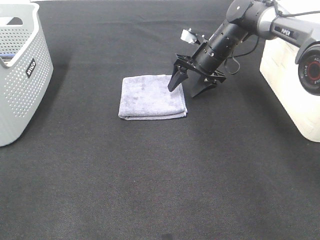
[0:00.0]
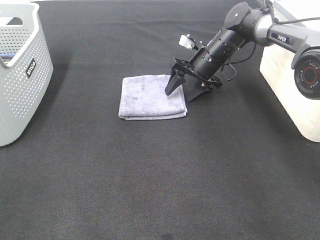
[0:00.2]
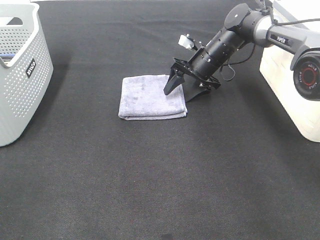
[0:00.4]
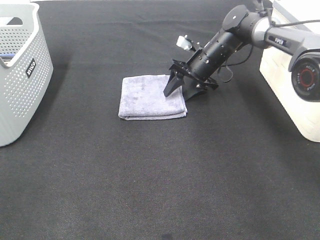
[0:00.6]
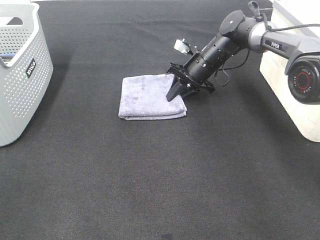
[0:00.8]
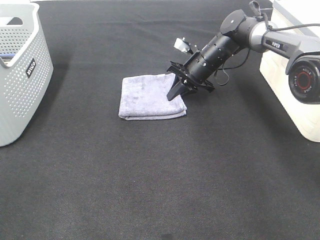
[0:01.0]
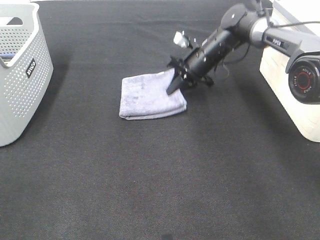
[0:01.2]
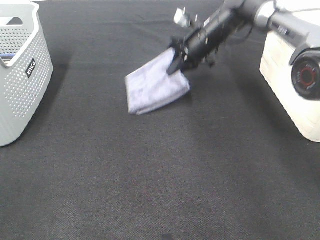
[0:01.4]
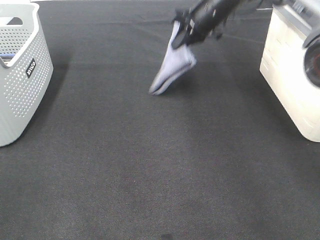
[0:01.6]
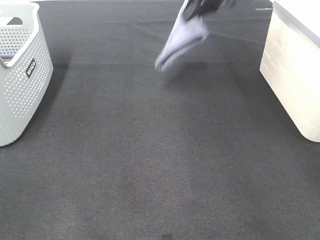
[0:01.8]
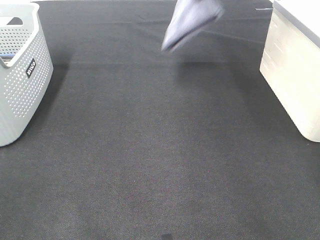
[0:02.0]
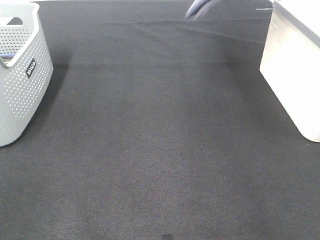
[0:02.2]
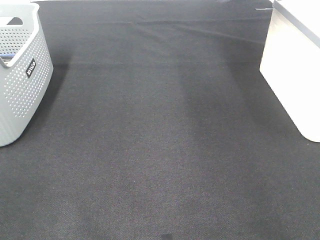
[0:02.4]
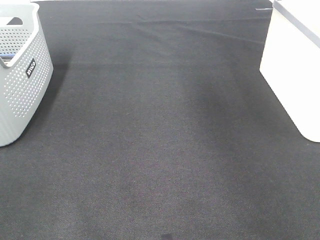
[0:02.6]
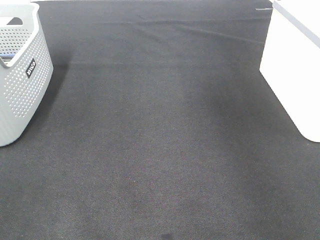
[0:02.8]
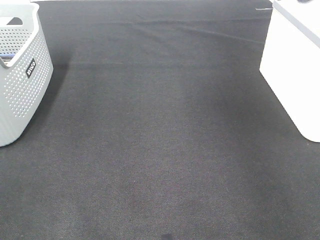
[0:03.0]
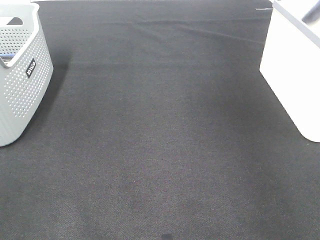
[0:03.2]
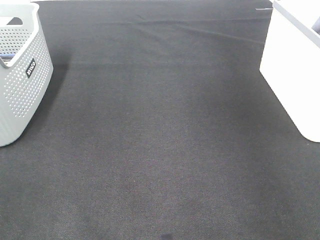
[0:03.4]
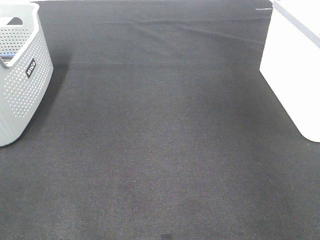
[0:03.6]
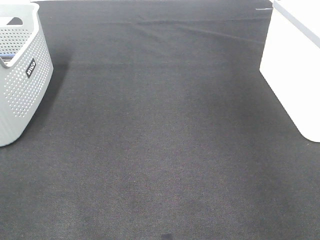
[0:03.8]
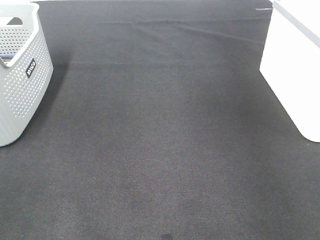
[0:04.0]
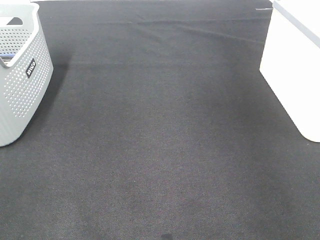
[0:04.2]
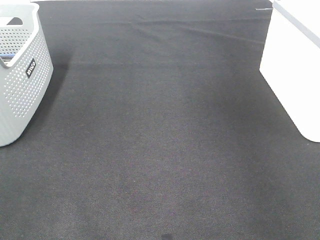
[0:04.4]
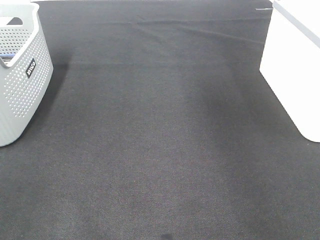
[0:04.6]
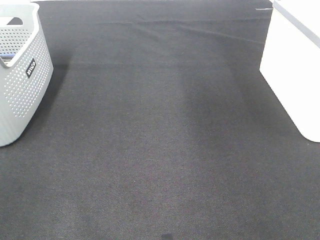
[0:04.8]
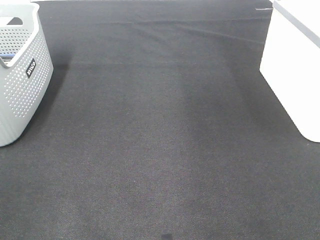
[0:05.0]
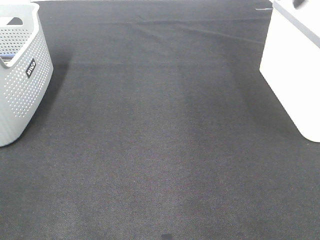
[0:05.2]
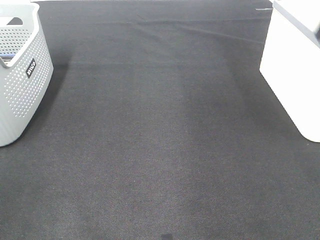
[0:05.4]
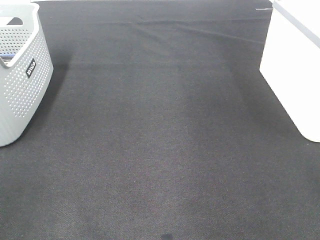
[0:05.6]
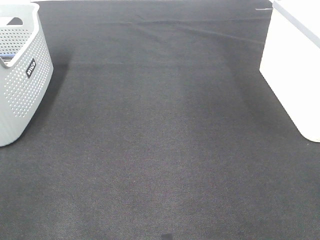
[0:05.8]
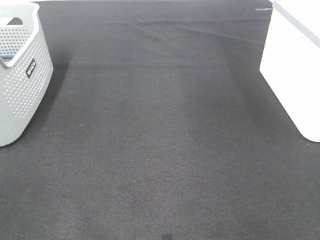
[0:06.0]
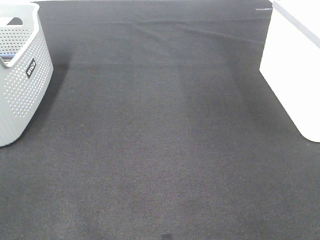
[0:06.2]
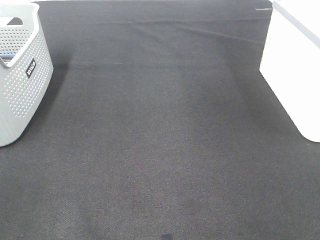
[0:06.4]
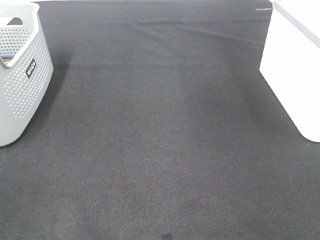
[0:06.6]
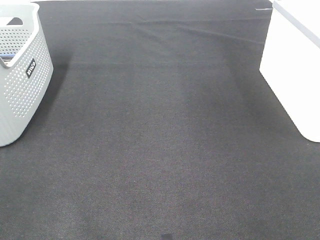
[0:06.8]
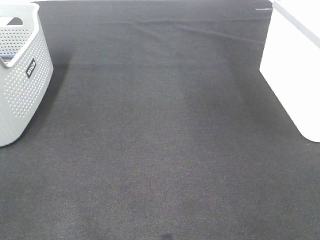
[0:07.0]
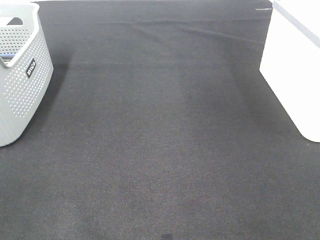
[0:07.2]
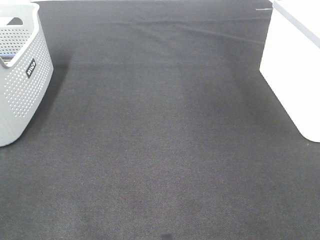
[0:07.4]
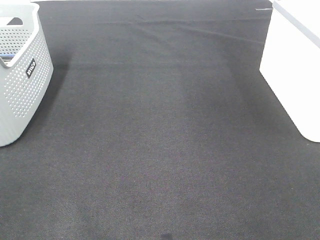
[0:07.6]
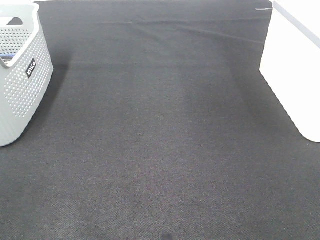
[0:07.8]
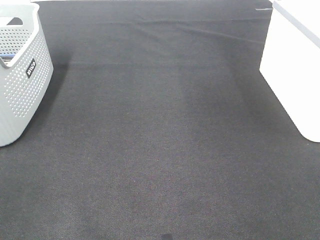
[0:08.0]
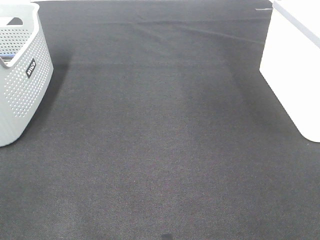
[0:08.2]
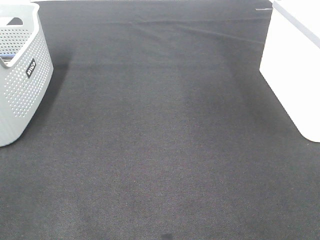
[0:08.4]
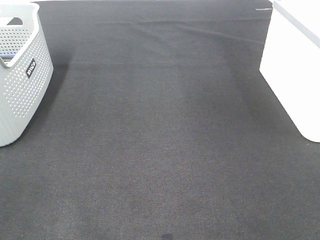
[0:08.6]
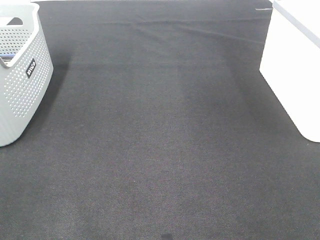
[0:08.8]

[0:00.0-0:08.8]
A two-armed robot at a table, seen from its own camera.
Step, 1.0 to 4.0 s: Right hand: place the grey towel in right basket.
0.0 to 1.4 s: The right gripper shifts roughly 5 cm upward, and closes up.
1.4 to 3.0 s: The right gripper goes some 35 cm to the right and upward.

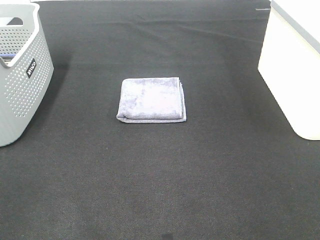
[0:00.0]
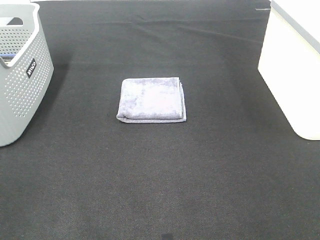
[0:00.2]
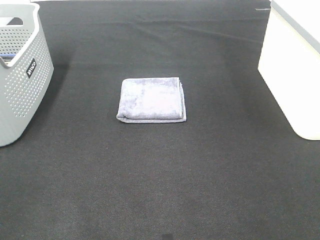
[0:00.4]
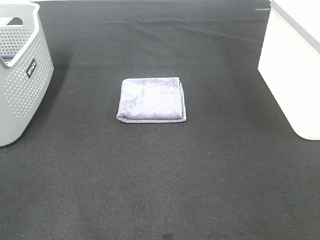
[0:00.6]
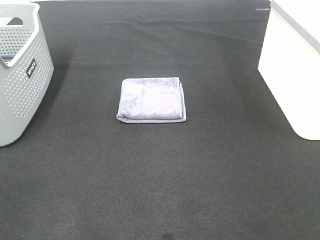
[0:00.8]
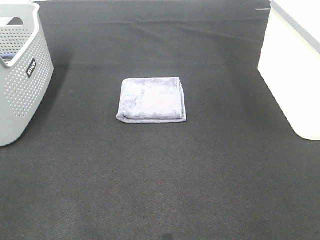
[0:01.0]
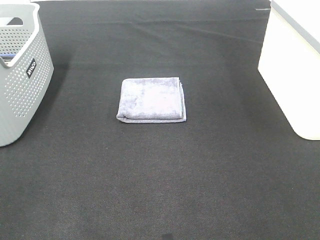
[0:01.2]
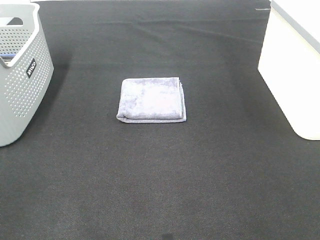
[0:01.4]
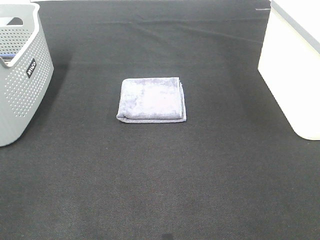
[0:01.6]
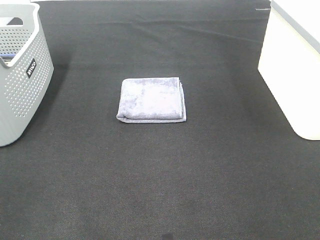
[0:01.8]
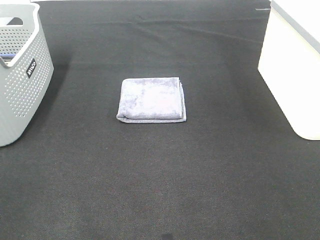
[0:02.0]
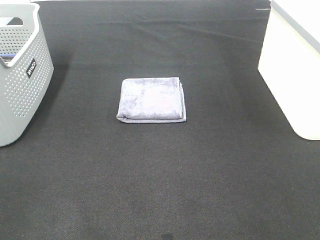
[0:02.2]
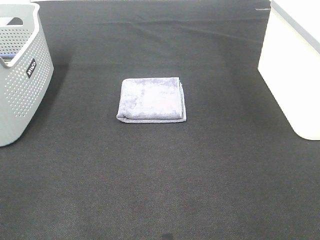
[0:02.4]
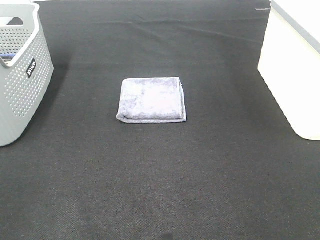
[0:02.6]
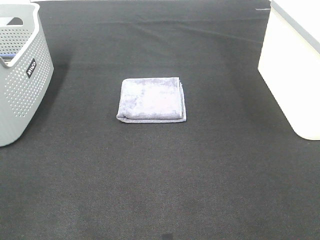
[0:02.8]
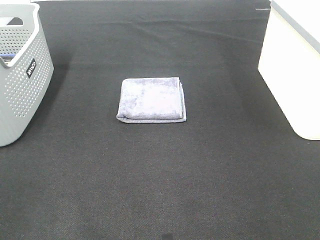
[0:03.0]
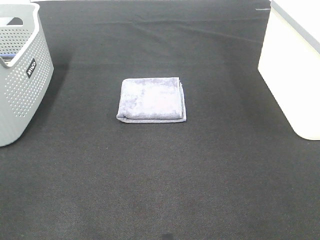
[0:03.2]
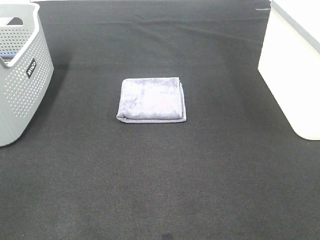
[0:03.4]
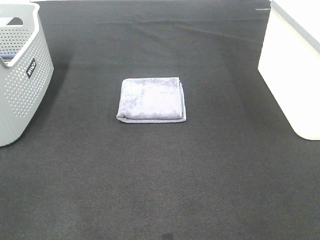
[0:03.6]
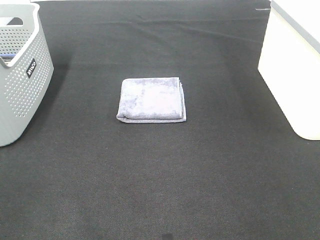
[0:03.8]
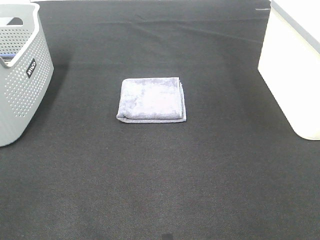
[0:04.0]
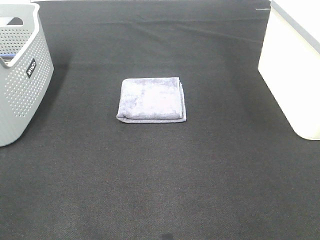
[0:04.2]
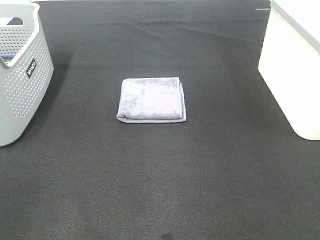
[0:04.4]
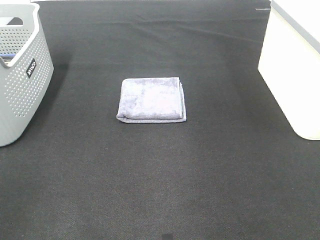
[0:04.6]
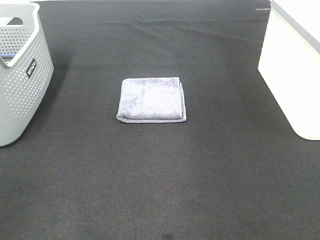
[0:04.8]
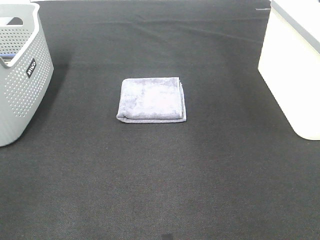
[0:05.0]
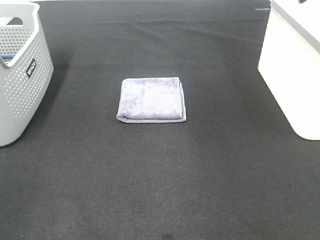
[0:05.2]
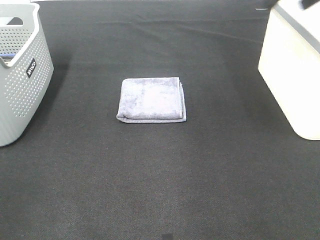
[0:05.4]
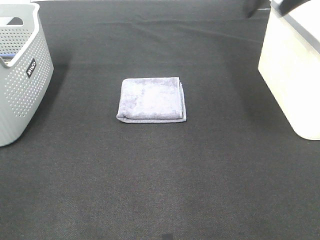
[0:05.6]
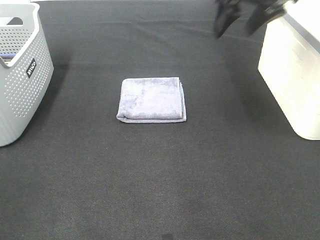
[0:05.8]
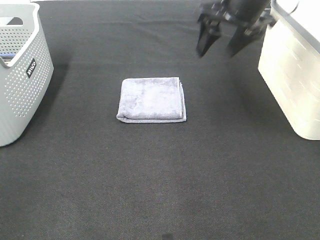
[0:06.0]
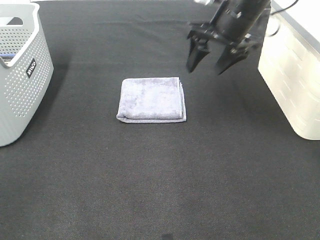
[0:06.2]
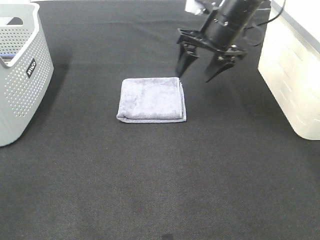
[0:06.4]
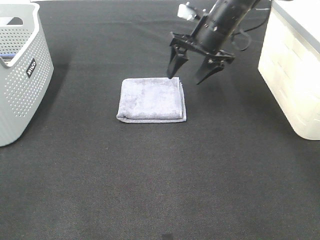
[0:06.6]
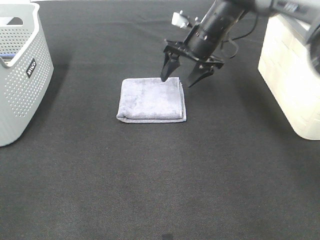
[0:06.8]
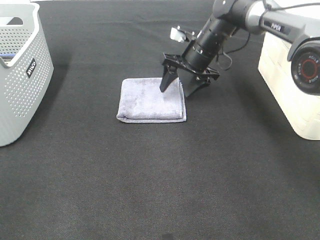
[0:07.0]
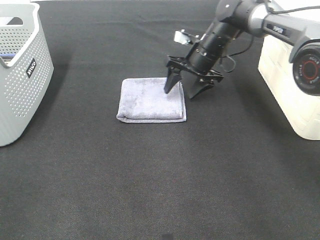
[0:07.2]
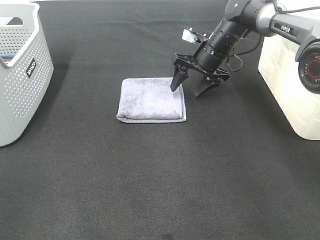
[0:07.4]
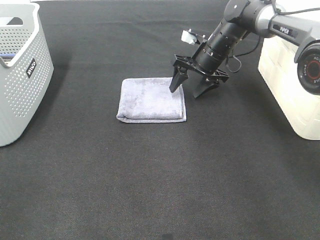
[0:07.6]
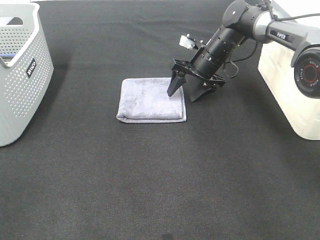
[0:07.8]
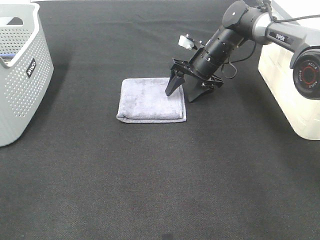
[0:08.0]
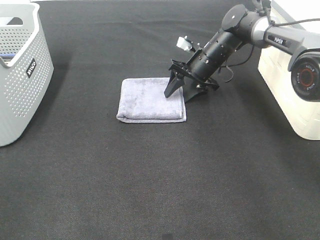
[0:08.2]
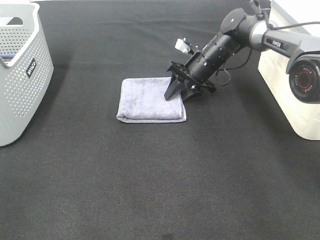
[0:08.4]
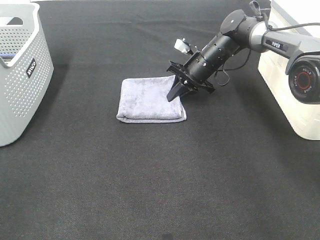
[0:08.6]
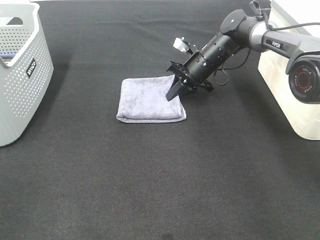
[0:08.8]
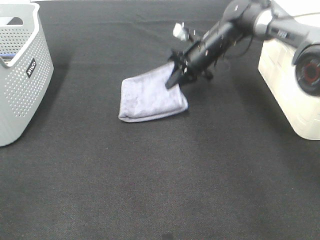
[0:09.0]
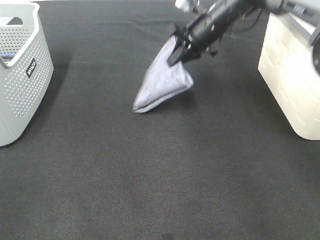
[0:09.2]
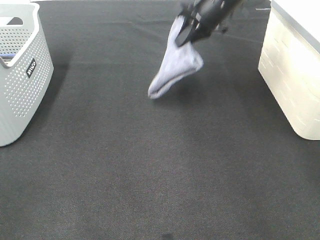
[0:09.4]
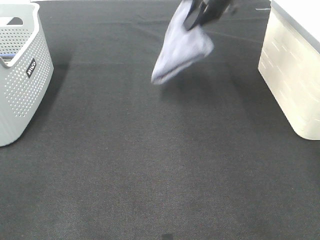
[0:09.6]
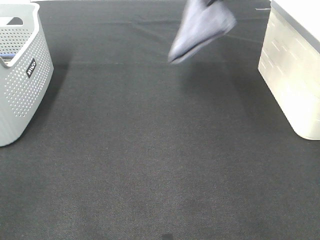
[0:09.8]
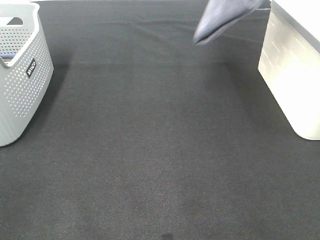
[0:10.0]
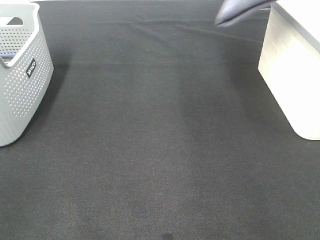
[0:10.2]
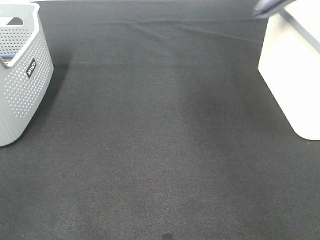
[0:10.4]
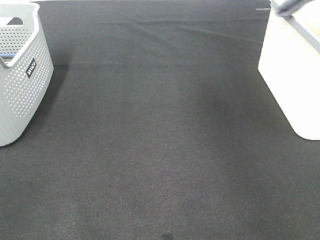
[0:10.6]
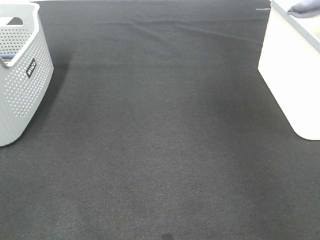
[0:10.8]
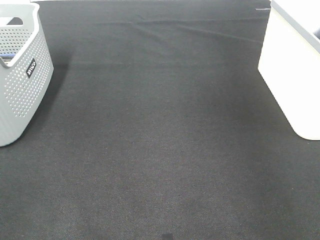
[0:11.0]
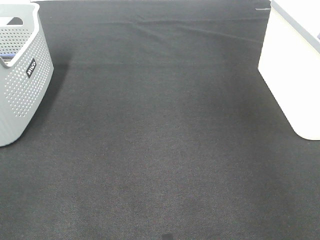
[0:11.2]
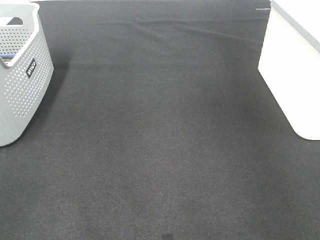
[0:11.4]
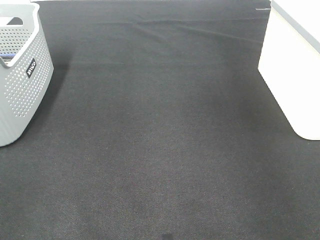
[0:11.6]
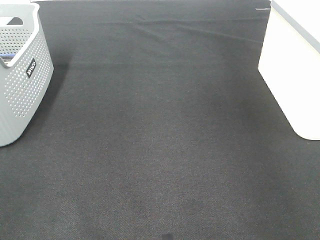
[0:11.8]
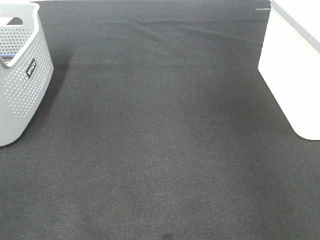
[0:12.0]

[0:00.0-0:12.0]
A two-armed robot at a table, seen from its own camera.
Step, 0.0 to 8.4 s: Right hand: grab the folded grey towel.
Step, 8.6 to 11.4 s: Right hand: place the grey towel in right basket.
0.0 to 3.0 s: Both grippers stay put.
4.4 to 6.0 s: The right gripper goes some 30 cm forward, to the left and downward.
6.0 to 7.6 s: The right gripper goes about 20 cm downward and forward.
7.6 to 9.0 s: The right gripper closes.
9.0 to 10.4 s: The right gripper shifts some 35 cm upward and to the right.
10.4 to 12.0 s: The right gripper travels downward and to the right by roughly 10 cm, and opens up.

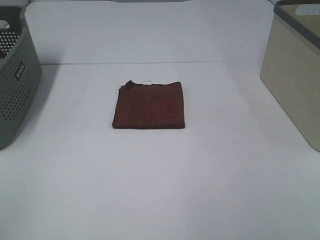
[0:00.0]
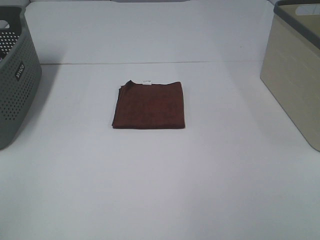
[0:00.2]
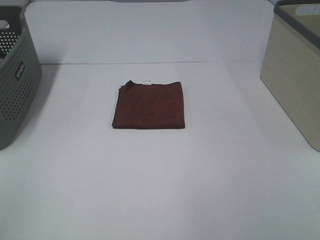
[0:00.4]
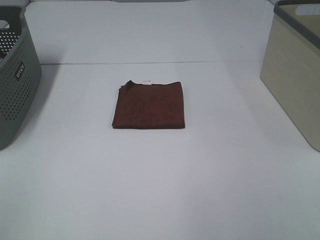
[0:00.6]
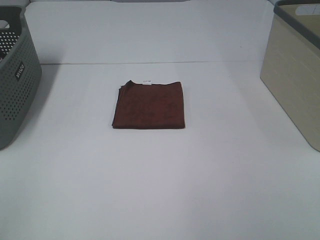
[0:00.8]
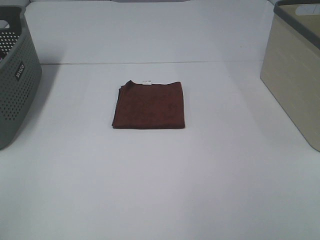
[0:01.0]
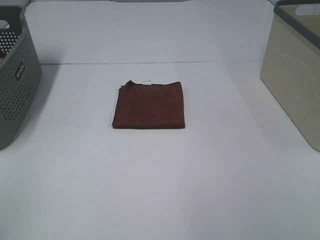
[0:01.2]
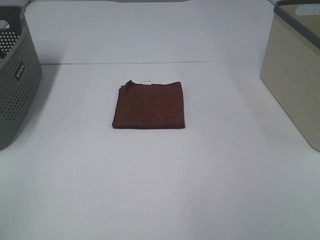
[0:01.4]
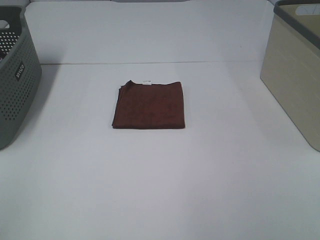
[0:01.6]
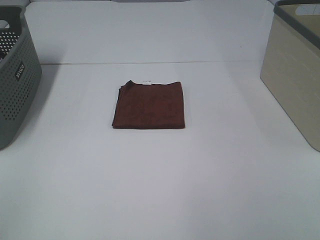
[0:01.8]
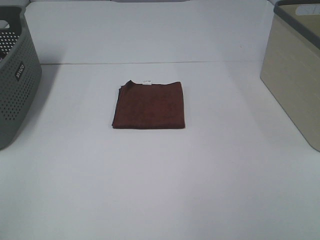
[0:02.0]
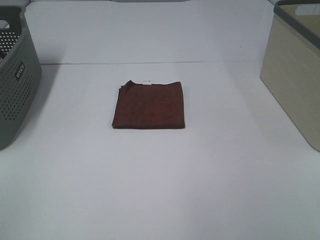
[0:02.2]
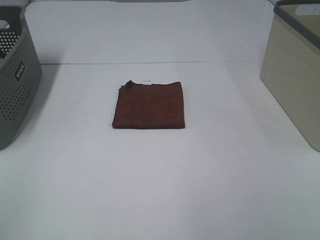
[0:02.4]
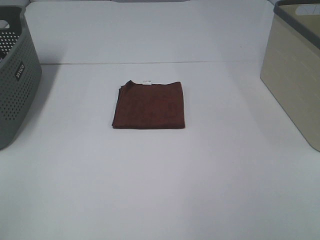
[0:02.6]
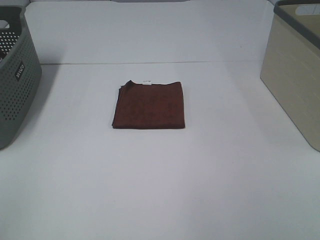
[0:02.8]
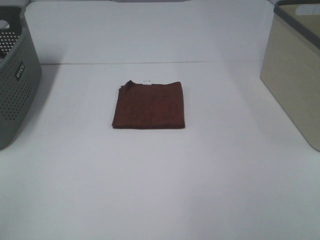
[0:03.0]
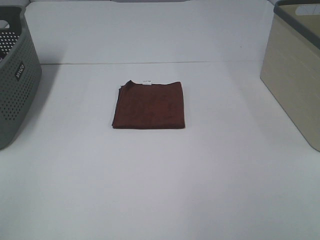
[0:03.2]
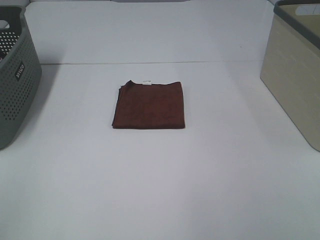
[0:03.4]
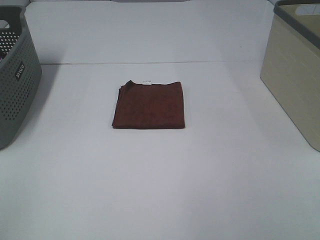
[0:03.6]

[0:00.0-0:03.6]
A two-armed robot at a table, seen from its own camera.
0.0 to 3.6 s: The two grippers keep their place.
